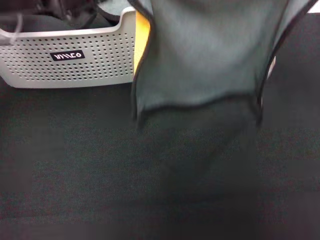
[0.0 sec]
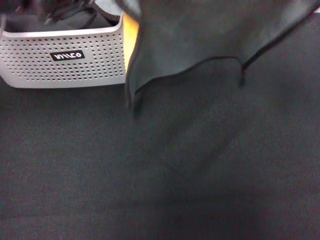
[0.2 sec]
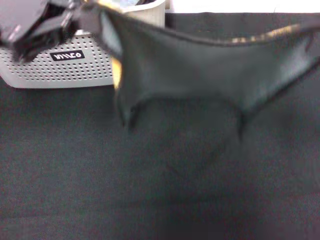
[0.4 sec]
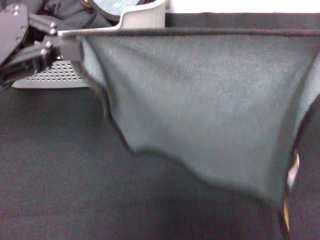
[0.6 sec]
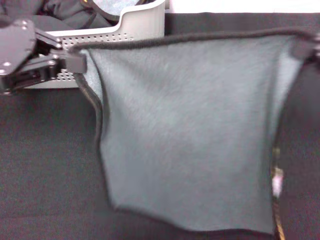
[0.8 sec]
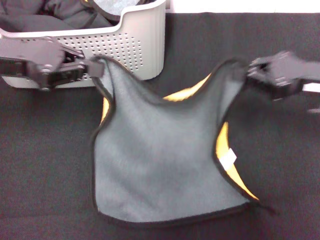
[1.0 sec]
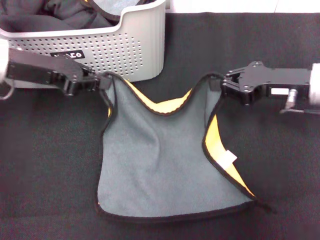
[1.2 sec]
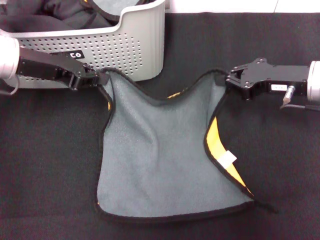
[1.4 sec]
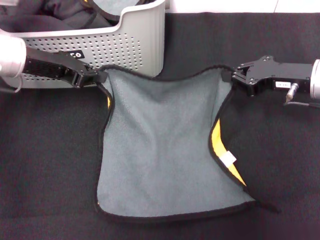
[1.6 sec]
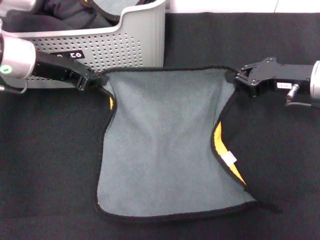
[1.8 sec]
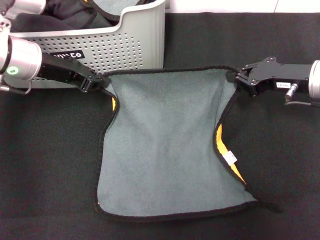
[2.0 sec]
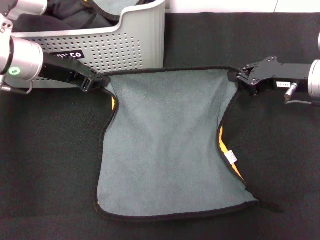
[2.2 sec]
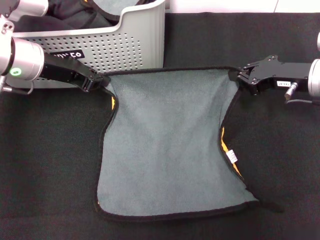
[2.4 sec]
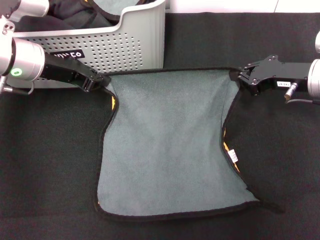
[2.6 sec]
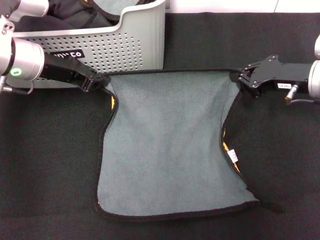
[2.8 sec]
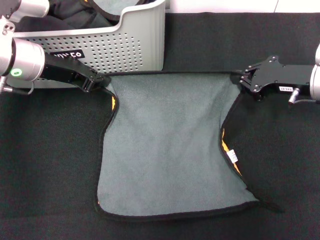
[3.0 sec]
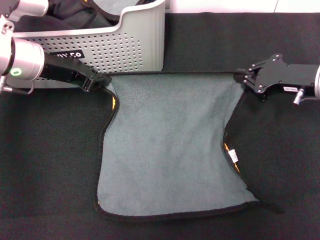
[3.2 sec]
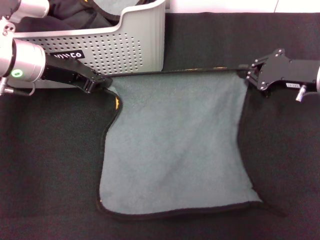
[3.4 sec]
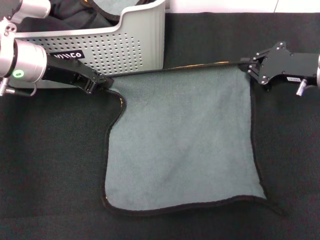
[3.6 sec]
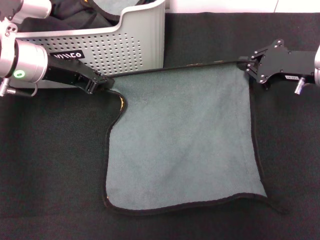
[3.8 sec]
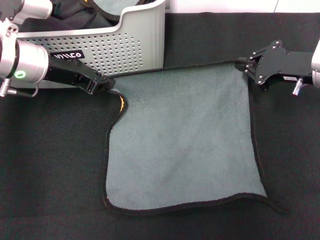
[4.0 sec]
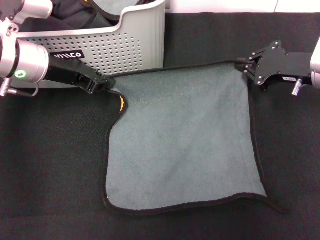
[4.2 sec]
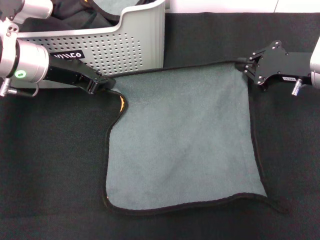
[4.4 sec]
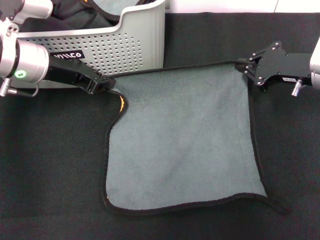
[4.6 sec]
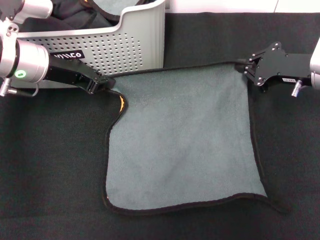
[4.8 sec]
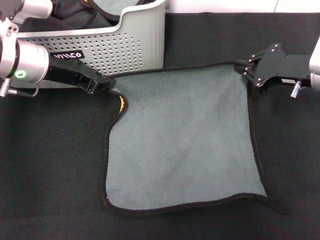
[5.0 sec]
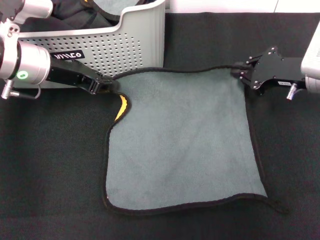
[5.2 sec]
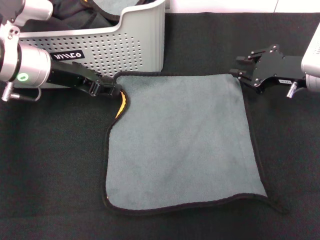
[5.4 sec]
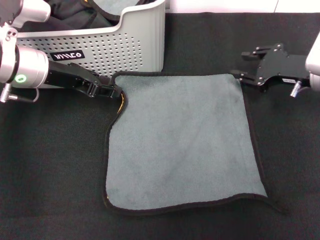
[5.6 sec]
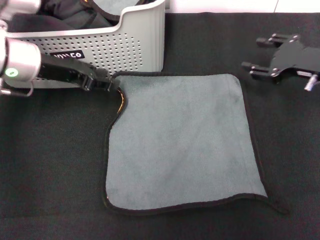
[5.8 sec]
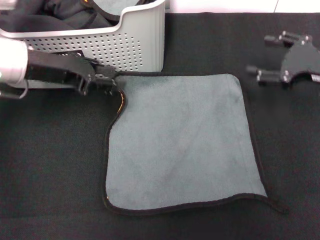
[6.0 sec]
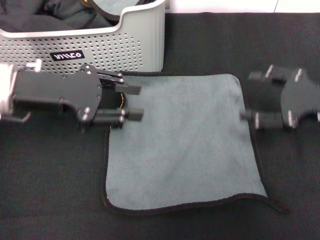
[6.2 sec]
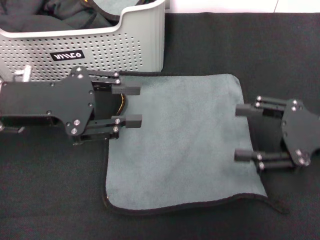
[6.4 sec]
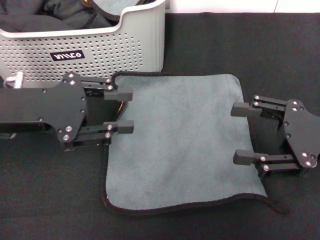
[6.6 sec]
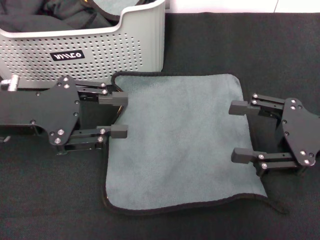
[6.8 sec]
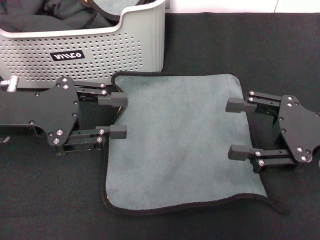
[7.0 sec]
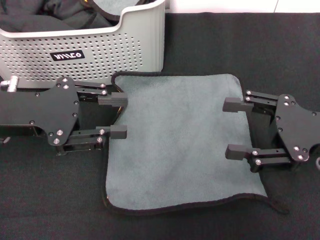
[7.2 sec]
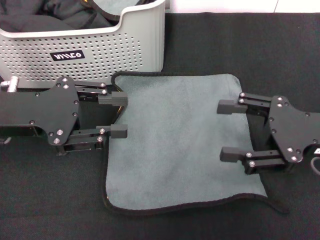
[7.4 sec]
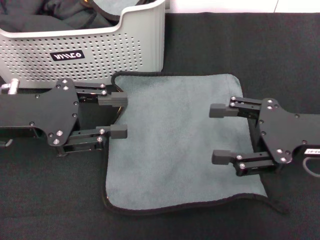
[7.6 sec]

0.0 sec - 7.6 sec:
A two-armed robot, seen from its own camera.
Task of the whole recording: pick up the towel from the storage box and lay it flat on the black tablecloth.
Step, 0.0 sec - 5.4 sec: Spread the towel flat with the right gripper.
0.0 sec - 1.6 sec: The left gripper goes some 10 cm downward. The right gripper goes approximately 15 cm downward and to the left.
1.6 sec - 3.0 sec: The grippers make only small movements.
3.0 sec - 4.6 sec: The grippers stay close to where they were, moving slightly.
4.6 sec - 6.0 sec: The right gripper ends up roughly 5 cm from where it was, and opens, while the left gripper opens.
6.0 sec - 7.6 sec: Both grippers travel together backward, roughly 10 cm.
